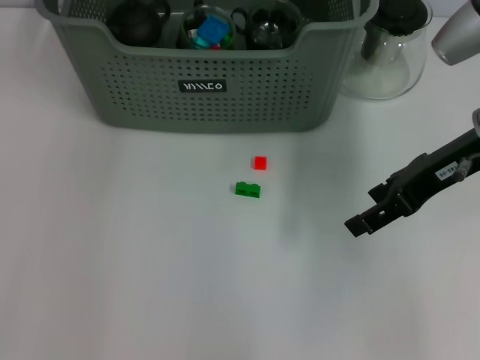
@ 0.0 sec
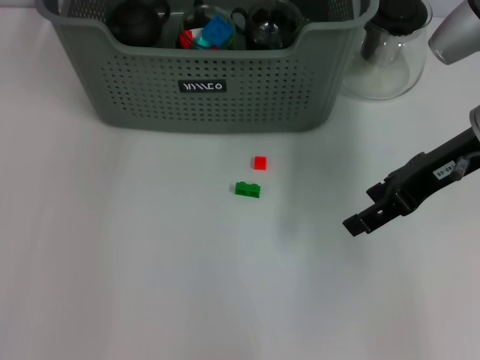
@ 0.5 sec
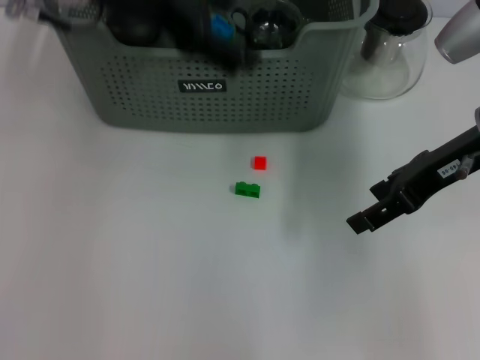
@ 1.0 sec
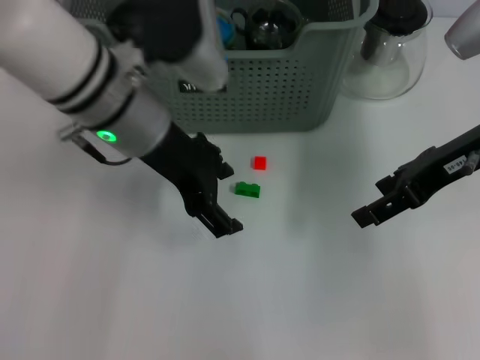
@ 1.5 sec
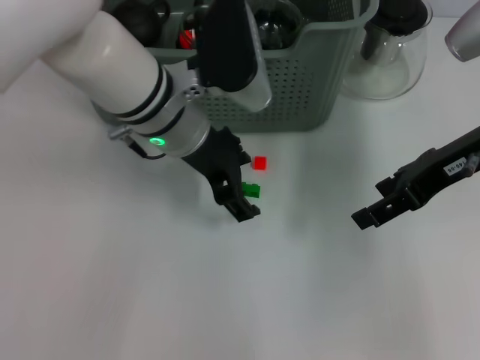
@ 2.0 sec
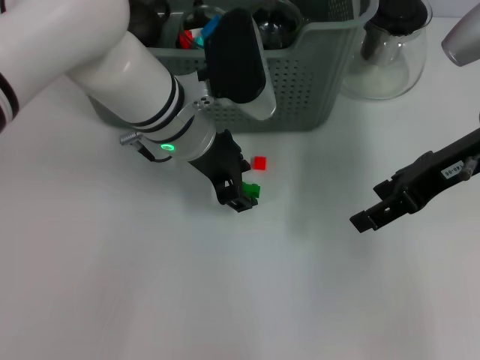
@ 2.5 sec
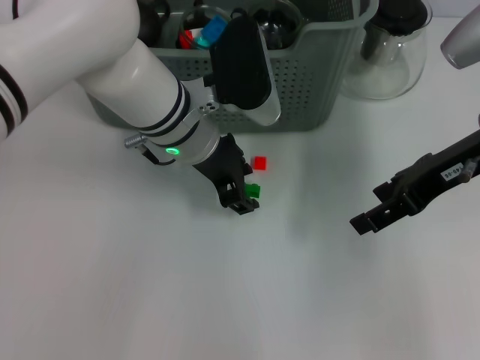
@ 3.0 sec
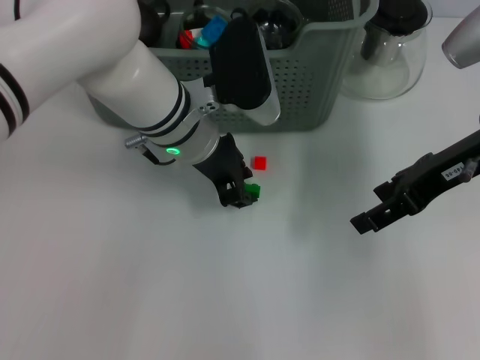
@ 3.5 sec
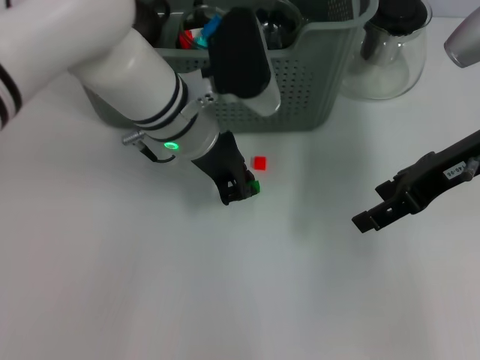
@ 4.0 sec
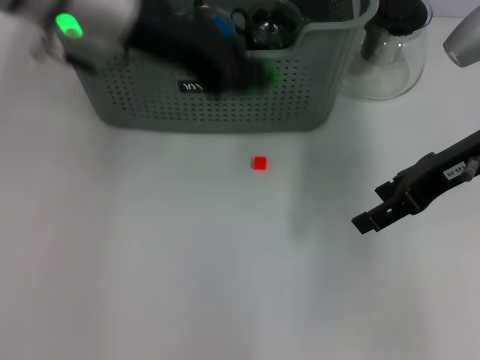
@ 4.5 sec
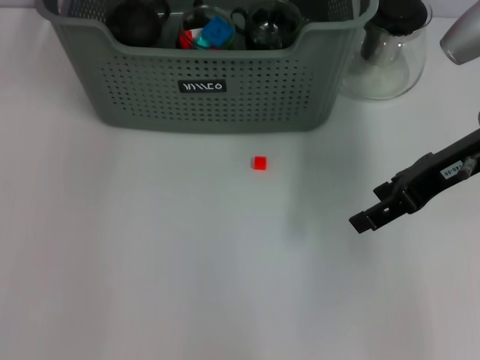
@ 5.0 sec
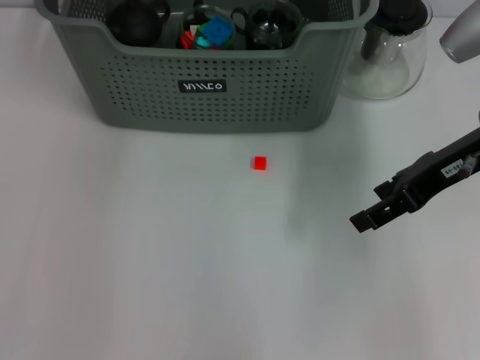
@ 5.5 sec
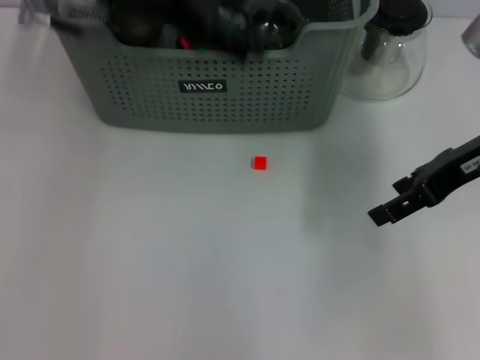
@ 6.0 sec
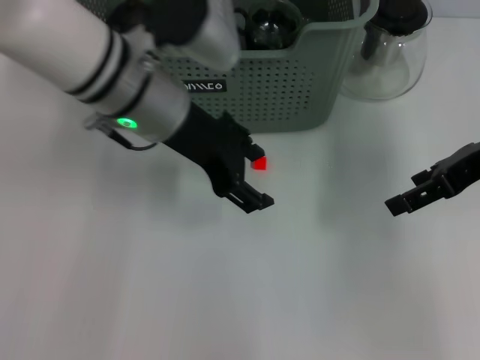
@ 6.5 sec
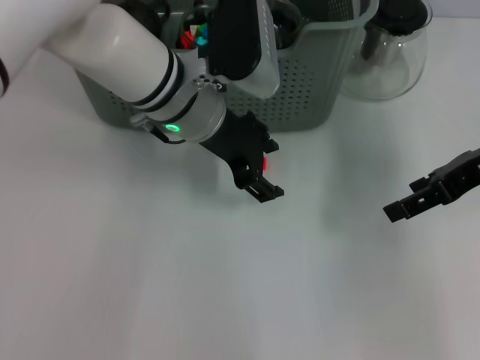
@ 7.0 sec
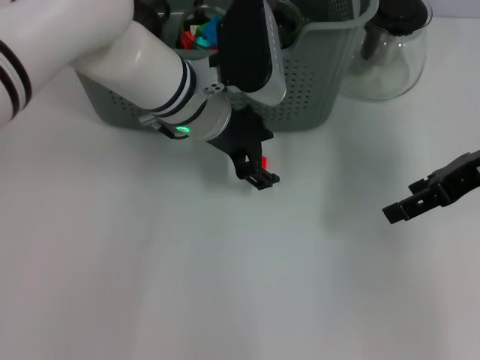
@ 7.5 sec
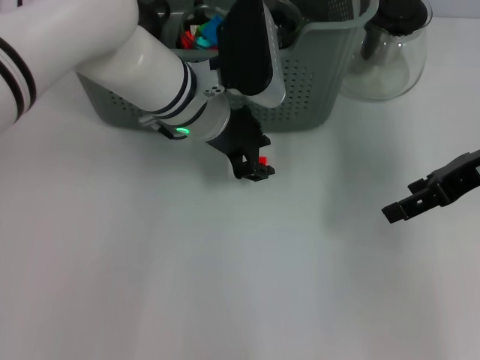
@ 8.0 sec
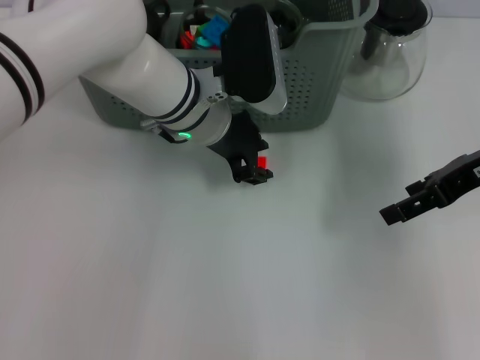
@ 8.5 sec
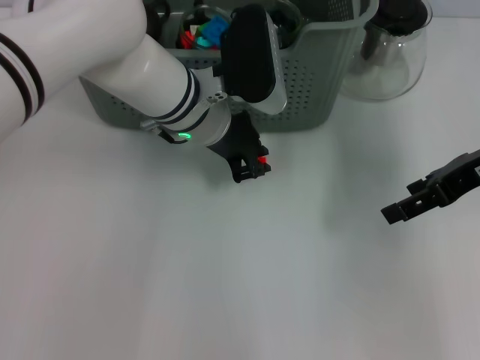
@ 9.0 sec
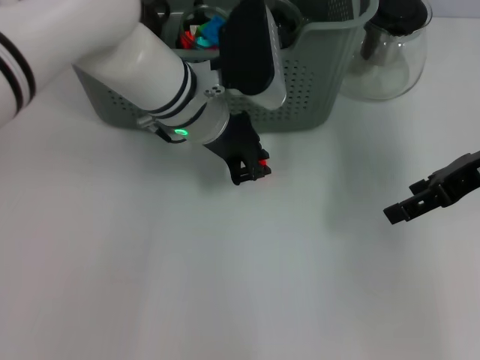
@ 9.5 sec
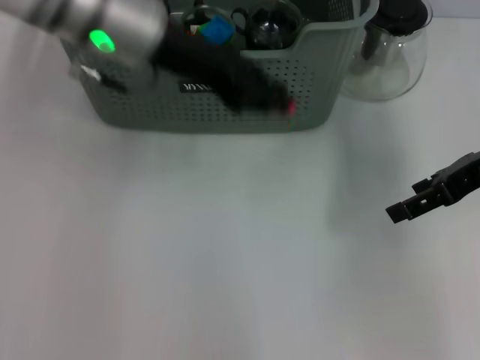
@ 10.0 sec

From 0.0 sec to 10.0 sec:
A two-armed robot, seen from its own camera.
Task of the whole recording: pick up the teacup on the table and place it into the storage bin, pick up the block on the table and place it into the storage bin.
Step, from 0.5 sec to 3.5 sec: Grasp the green block with left gripper.
Step, from 4.0 sec to 5.0 sec: Place the green block in the storage box with left gripper.
Step, from 5.5 sec to 9.0 sec: Grasp the orange block with left gripper.
From 0.0 sec to 2.0 sec: The left gripper heads downward, backward and to the right, covering some 15 cm, and opens its fingers.
From 2.0 sec to 4.0 sec: The left gripper closes.
From 4.0 sec to 6.0 sec: The left gripper travels upward and to the left by about 15 cm, and opens up.
From 6.0 sec to 8.0 sec: The left gripper shifts roughly 15 cm downward and to the right.
From 8.0 sec to 10.0 sec: The left gripper travels upward and to the left by approximately 15 cm, and closes.

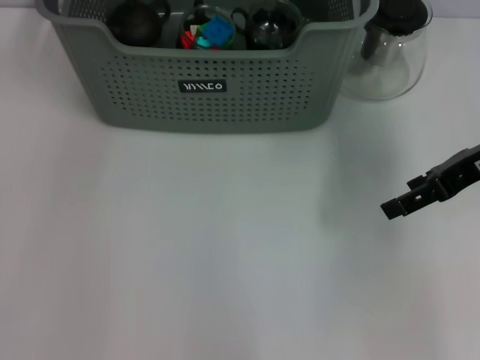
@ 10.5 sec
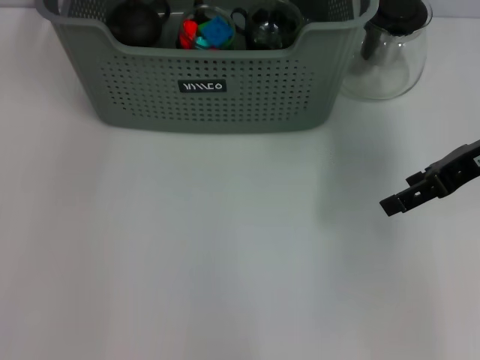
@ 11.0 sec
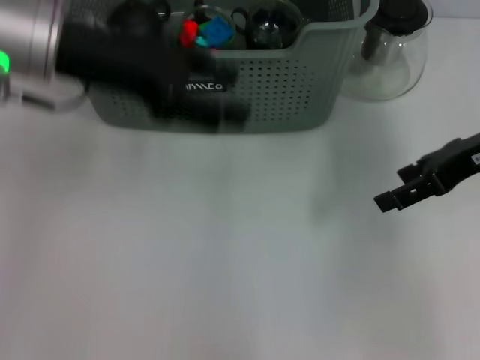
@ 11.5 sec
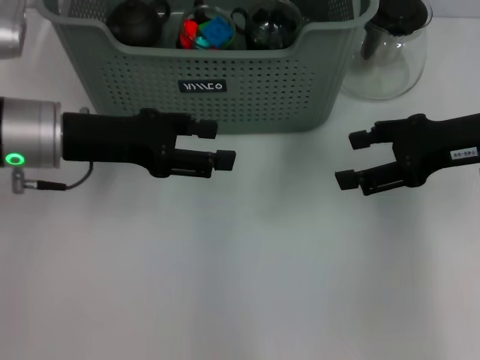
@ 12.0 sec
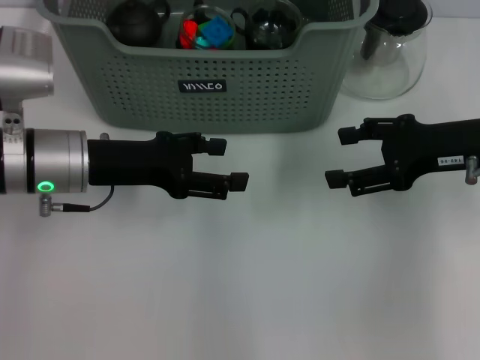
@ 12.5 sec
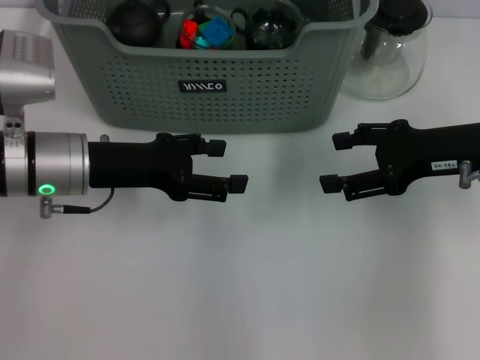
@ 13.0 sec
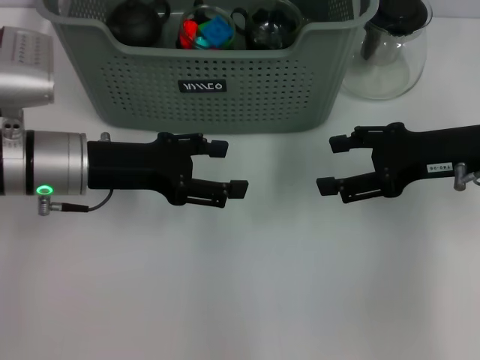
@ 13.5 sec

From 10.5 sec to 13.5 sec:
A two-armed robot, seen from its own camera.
Task of the whole recording: pick up the teacup on the table and place it into the storage bin, pick up the block on the table and place it into the storage bin.
From 10.5 sec to 12.0 sec: The left gripper shifts roughly 20 cm downward and backward, and opens up.
From 12.0 sec to 13.5 sec: The grippers make only small movements.
